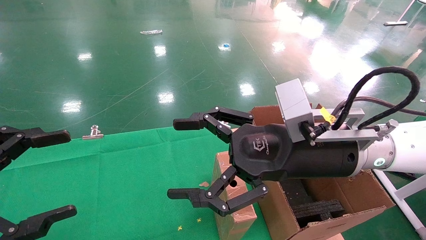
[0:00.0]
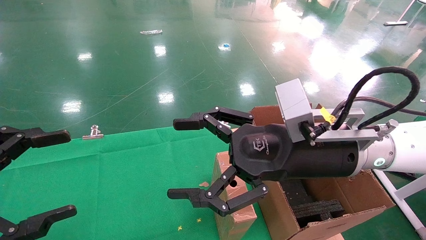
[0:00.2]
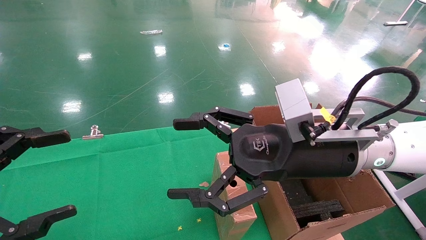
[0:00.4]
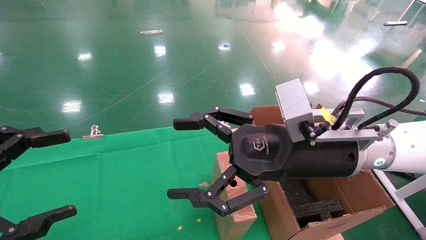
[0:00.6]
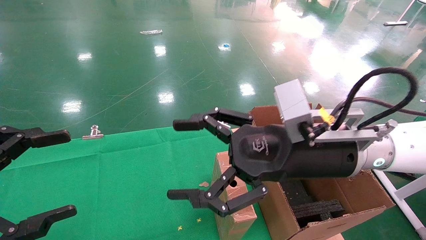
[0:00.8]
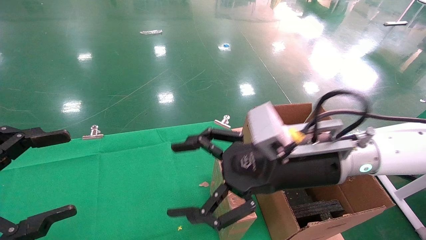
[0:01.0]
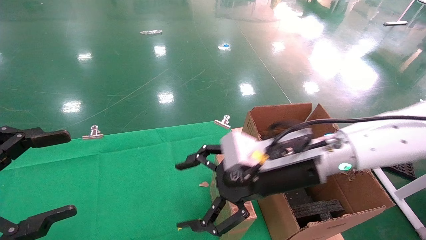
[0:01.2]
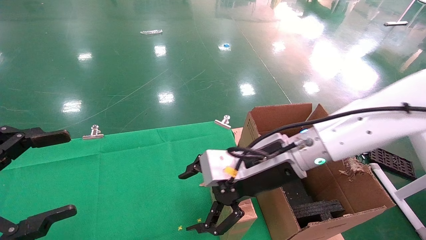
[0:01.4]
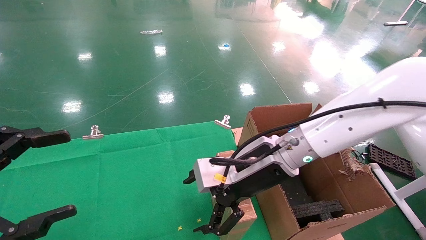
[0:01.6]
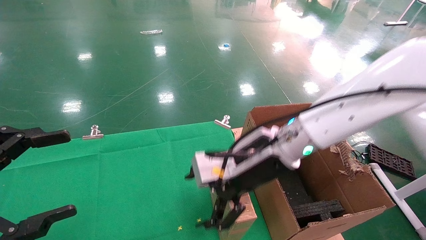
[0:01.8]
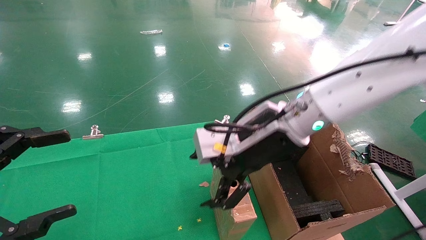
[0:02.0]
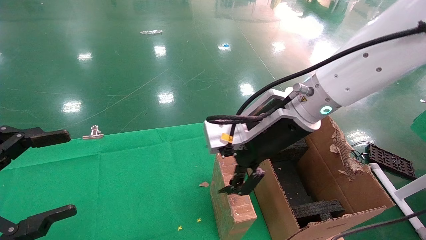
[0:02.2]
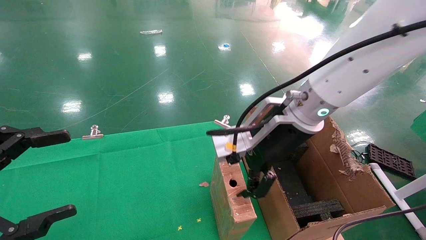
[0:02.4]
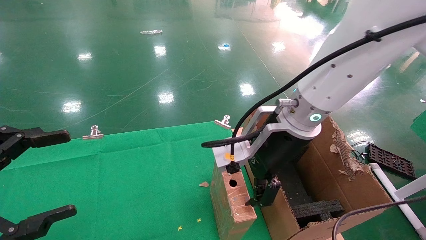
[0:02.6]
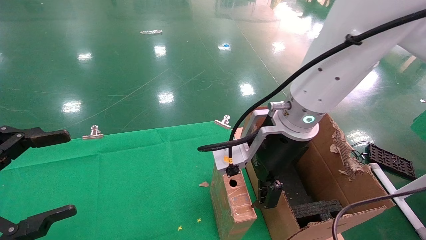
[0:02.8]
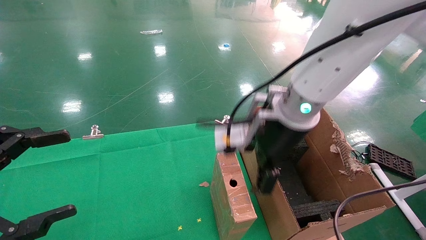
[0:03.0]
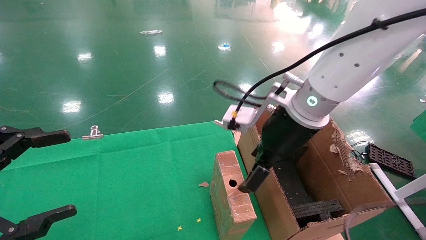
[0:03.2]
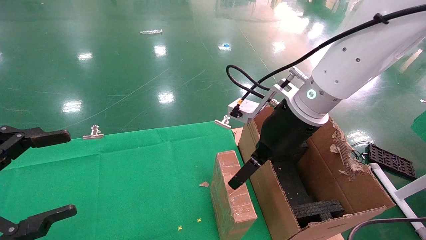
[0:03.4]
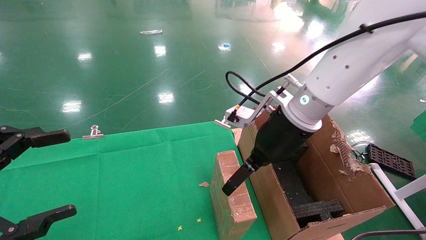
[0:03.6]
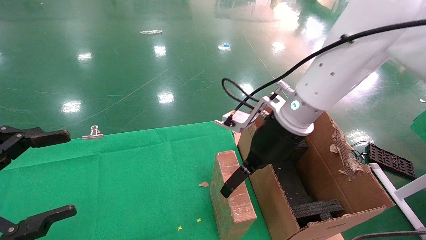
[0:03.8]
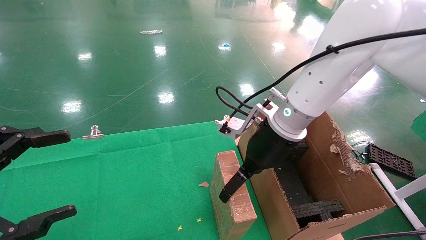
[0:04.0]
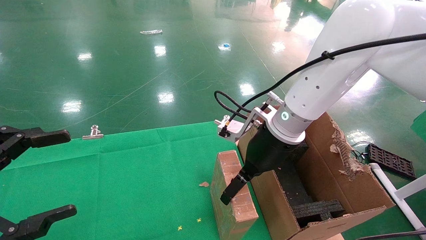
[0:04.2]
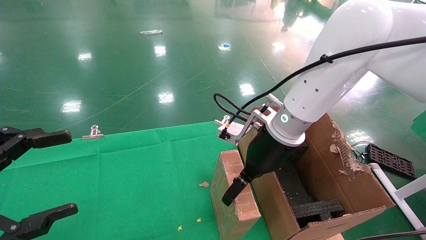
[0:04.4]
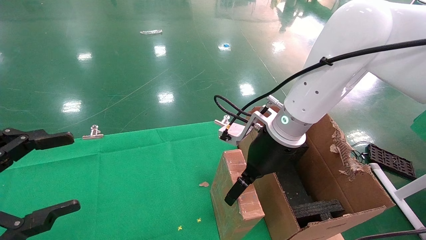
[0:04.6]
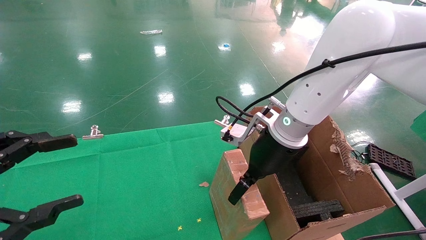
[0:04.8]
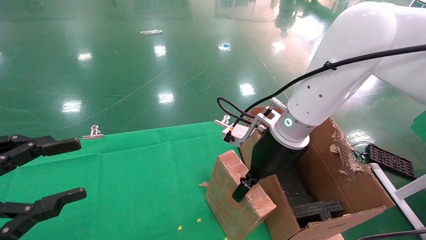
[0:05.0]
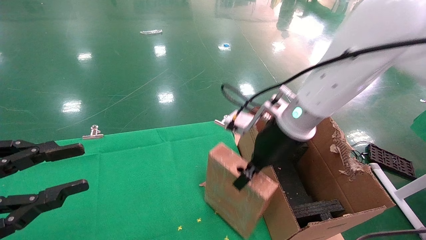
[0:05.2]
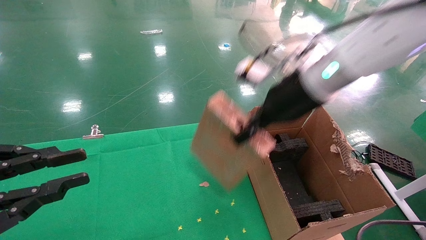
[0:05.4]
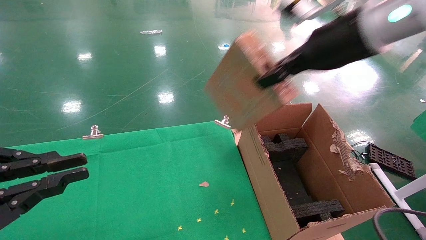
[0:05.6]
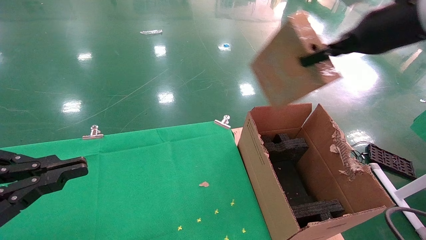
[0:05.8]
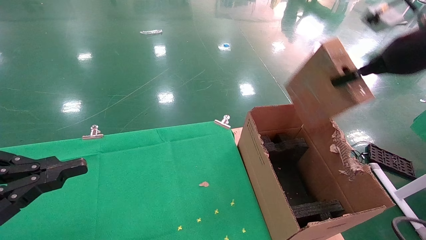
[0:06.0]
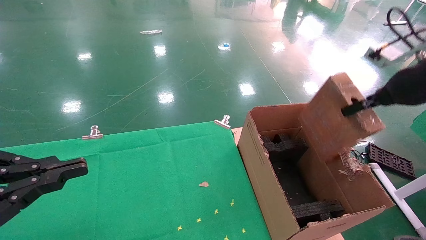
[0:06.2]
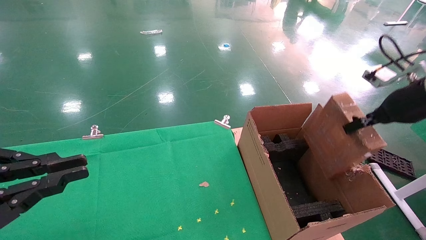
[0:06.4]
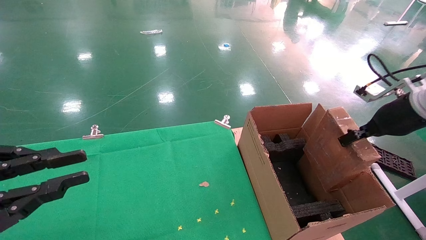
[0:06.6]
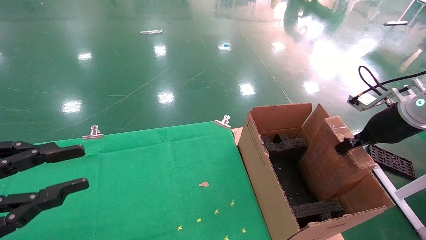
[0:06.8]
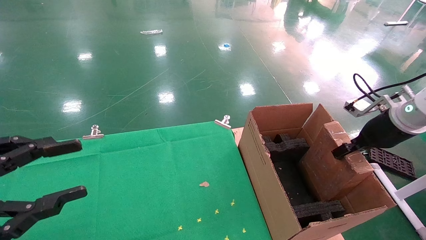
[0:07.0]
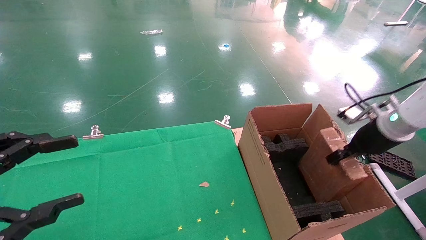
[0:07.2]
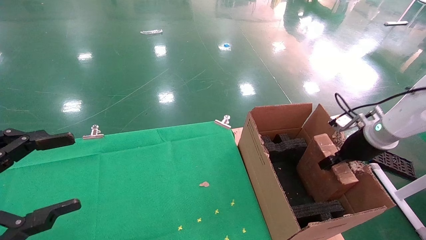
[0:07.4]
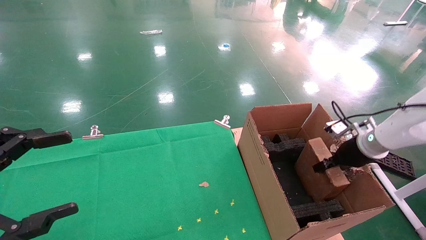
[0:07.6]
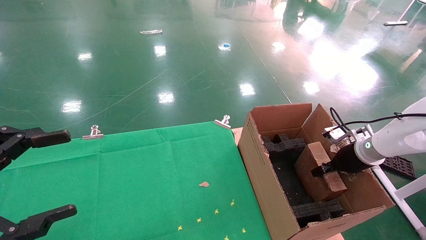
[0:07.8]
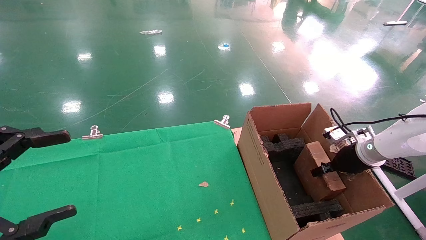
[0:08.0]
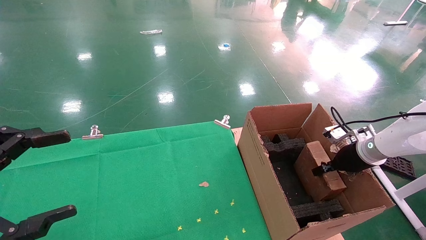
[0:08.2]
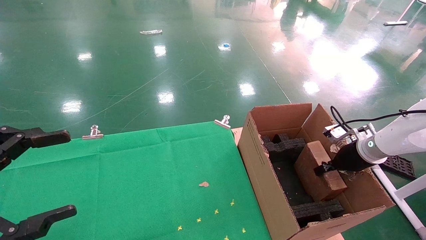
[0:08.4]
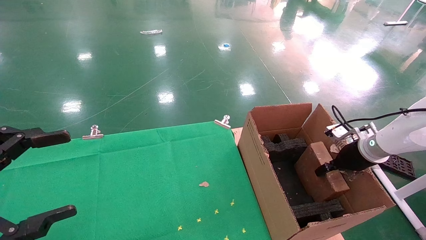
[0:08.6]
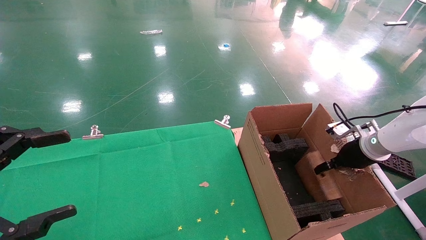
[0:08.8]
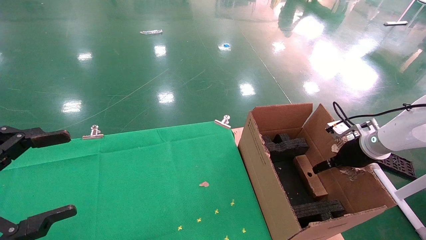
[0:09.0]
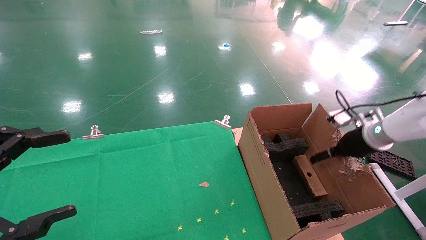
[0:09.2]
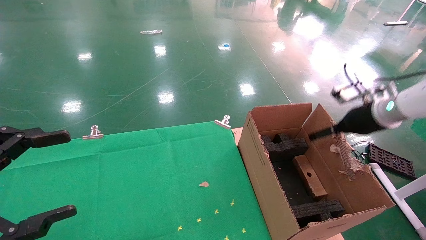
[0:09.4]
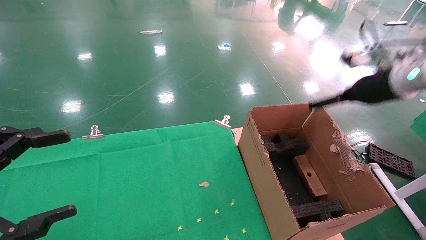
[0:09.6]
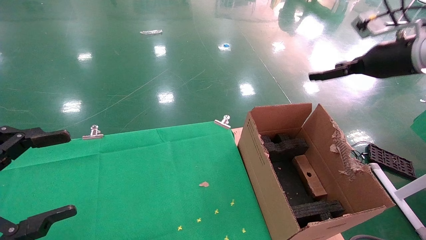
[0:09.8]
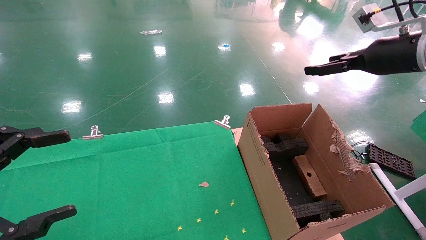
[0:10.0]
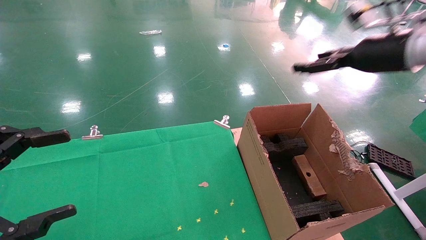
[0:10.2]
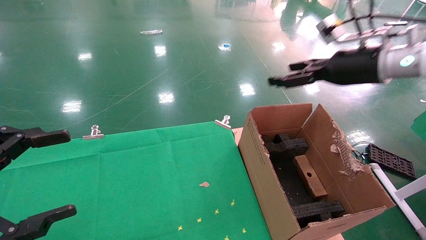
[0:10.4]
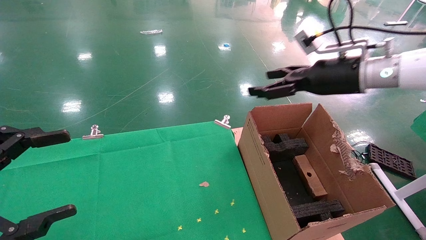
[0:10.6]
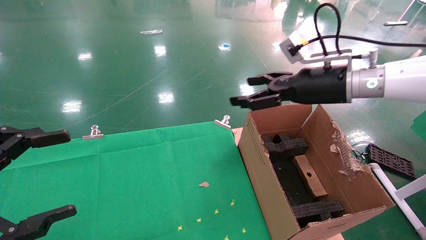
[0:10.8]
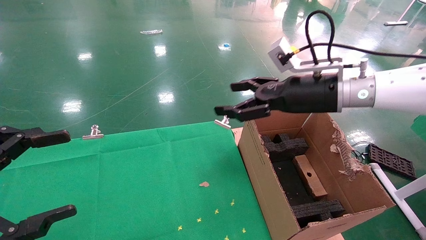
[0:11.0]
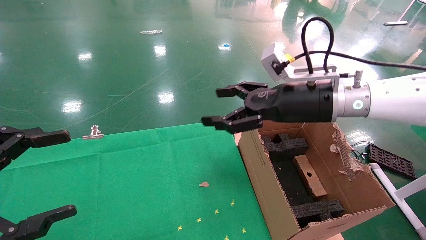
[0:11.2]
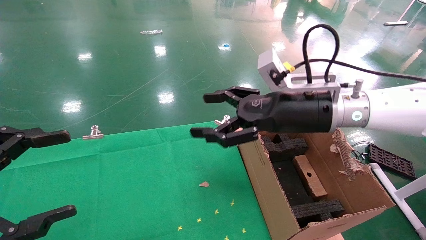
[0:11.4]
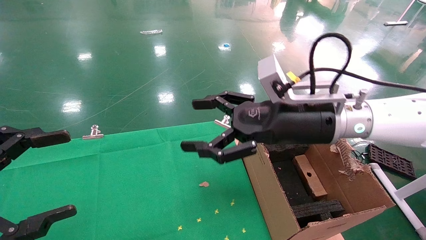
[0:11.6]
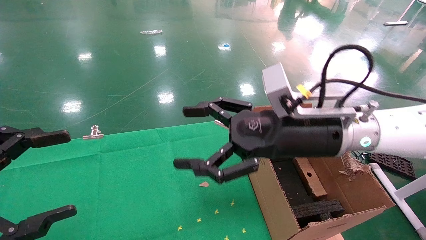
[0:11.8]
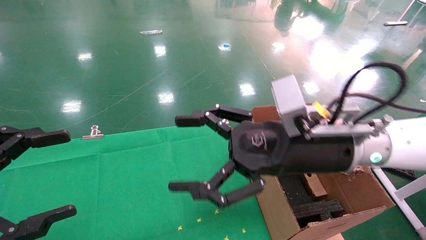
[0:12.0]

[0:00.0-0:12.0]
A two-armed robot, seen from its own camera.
Task of the whole recording: using a robotic arm to pick up a cardboard box and palace it the carton.
Step, 0:01.2 to 0:05.0: Pick up the mouse and the power cord paper box.
Step, 0:05.2 to 0:09.6: Place the mouse and the power cord paper box into the container.
0:00.0 to 0:01.6: The right gripper travels forward by some 5 cm.
0:01.6 to 0:03.0: The right gripper is displaced upward by approximately 5 cm.
0:03.0 to 0:04.4: The right gripper changes place by about 5 cm.
0:04.4 to 0:06.0: The left gripper closes. The right gripper travels to the right and upward by some 25 cm, and closes up.
0:06.0 to 0:07.6: The right gripper is displaced downward by approximately 25 cm, while the left gripper opens.
0:07.6 to 0:09.0: The right gripper opens its fingers.
0:09.0 to 0:10.4: The right gripper moves upward and to the left, roughly 20 cm, and opens its fingers.
0:10.4 to 0:12.0: The right gripper travels to the left, backward and downward by approximately 20 cm.

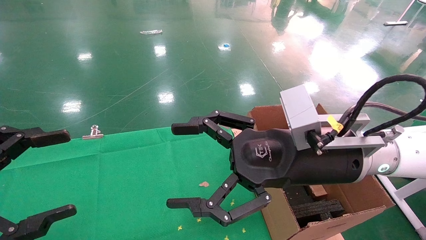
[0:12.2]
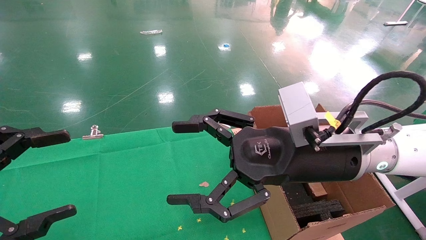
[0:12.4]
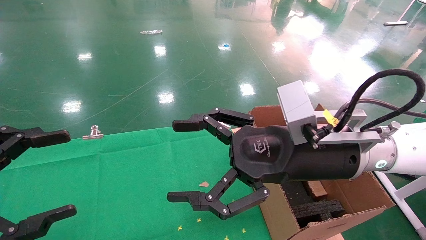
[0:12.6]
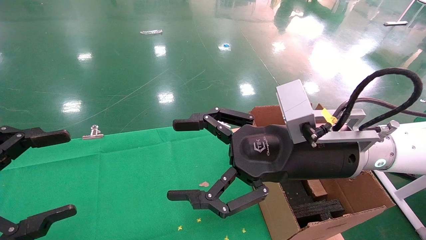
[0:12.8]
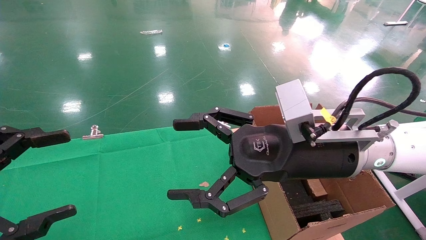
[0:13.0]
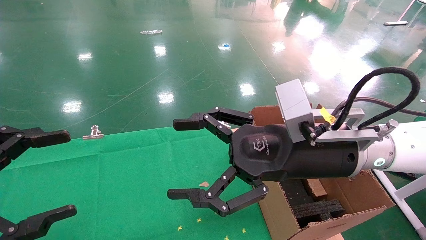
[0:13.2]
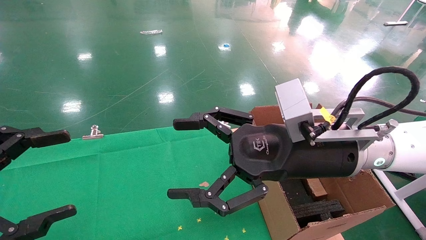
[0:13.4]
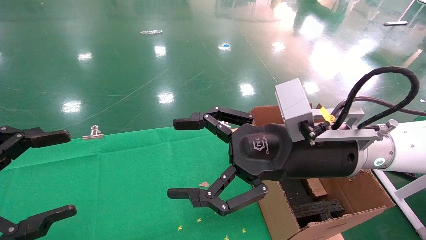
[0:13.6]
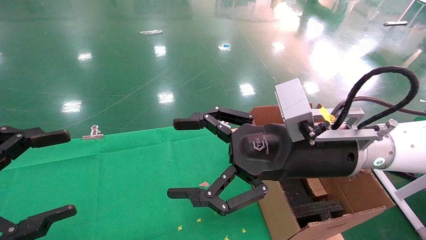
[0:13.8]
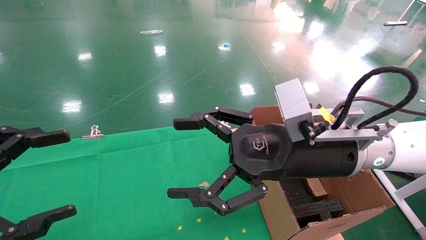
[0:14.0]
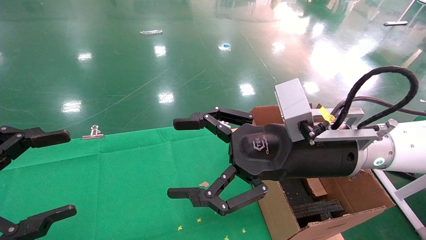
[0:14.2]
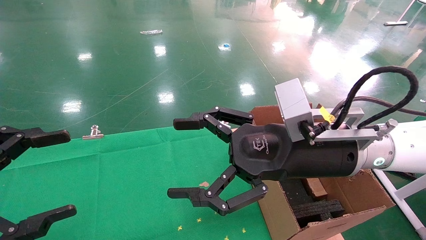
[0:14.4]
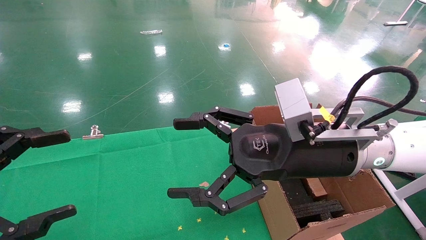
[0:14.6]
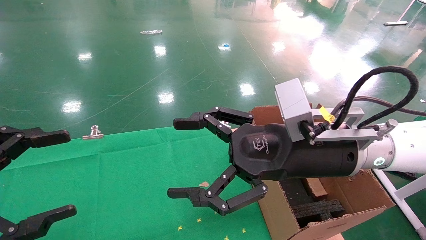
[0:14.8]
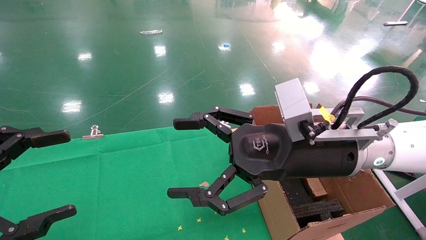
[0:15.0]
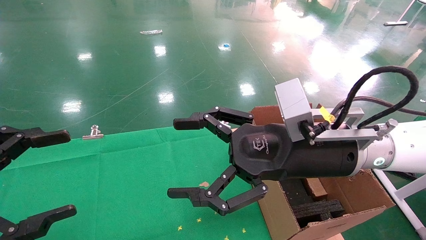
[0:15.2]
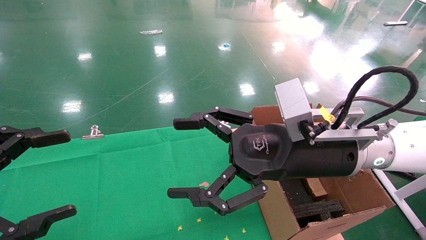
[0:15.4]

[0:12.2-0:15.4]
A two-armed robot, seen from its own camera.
Task of the whole recording: using a robotic arm to pick up a cardboard box and palace it the carton.
0:12.2 to 0:15.4: Both grippers stay about where they are.
